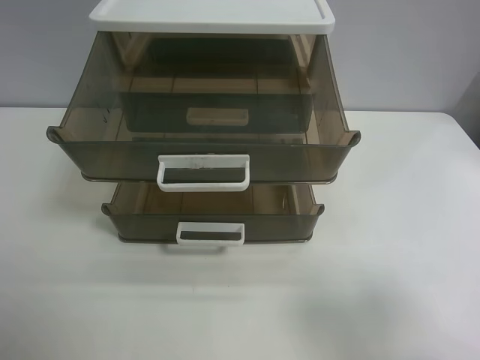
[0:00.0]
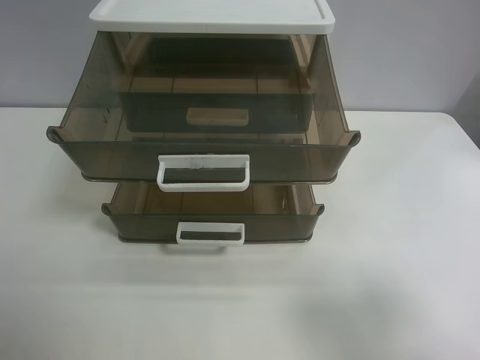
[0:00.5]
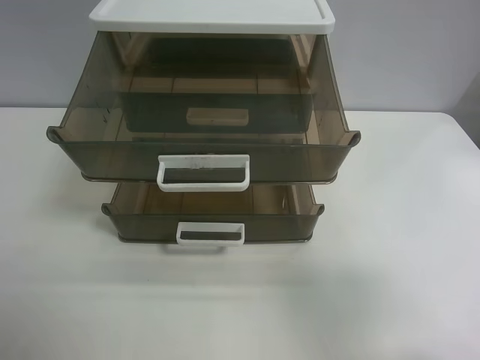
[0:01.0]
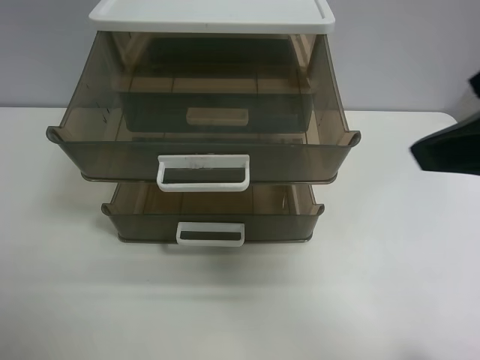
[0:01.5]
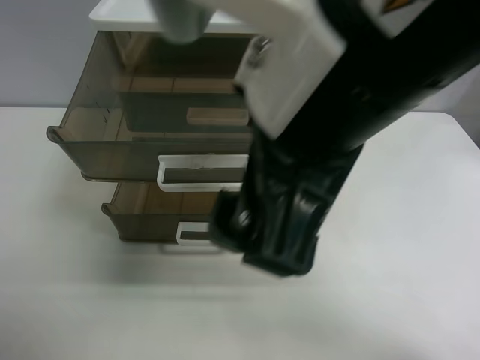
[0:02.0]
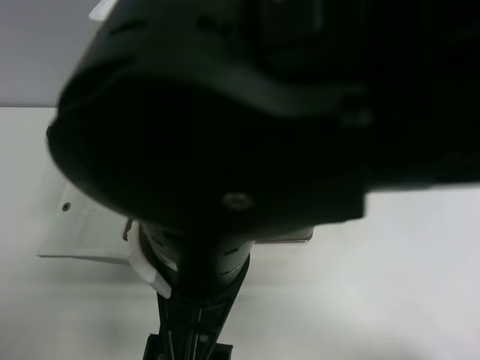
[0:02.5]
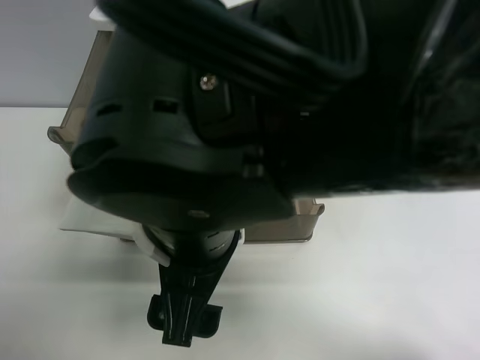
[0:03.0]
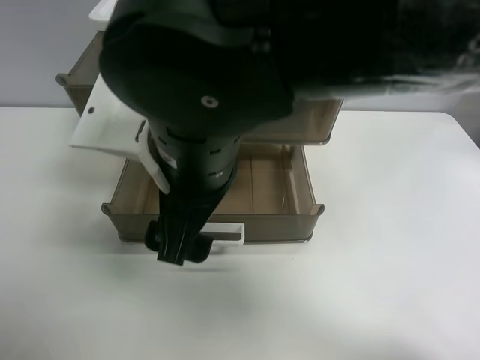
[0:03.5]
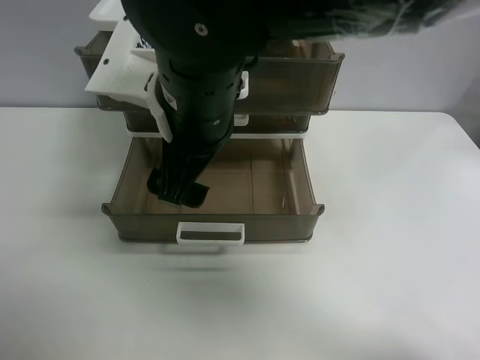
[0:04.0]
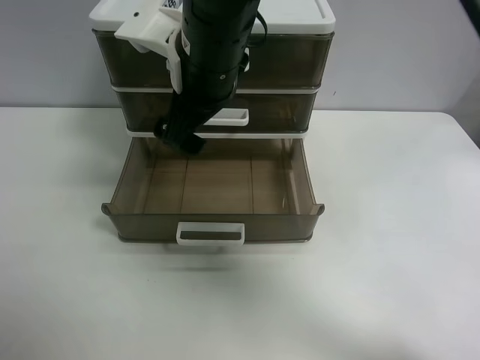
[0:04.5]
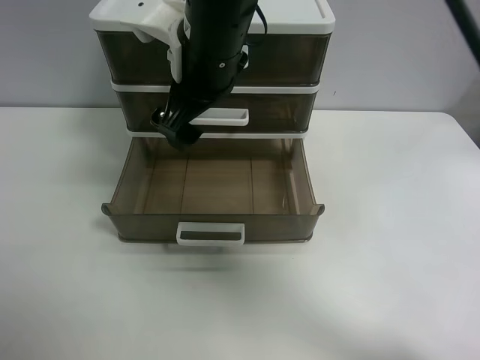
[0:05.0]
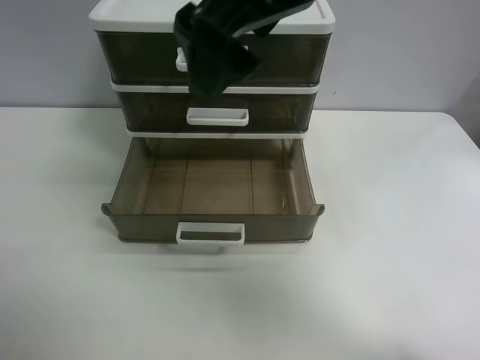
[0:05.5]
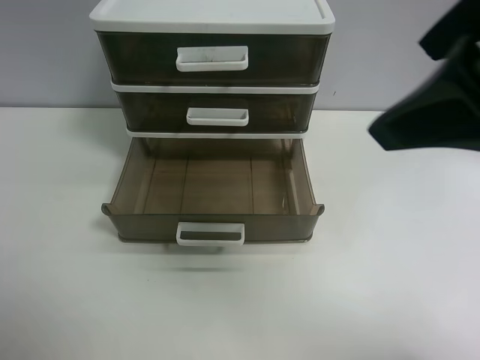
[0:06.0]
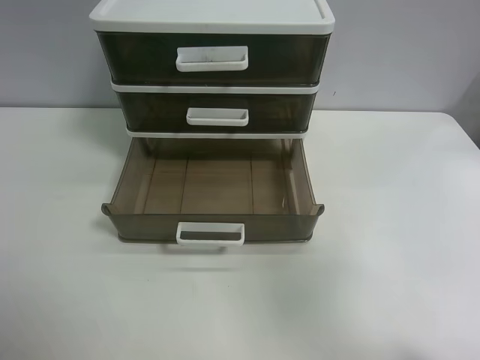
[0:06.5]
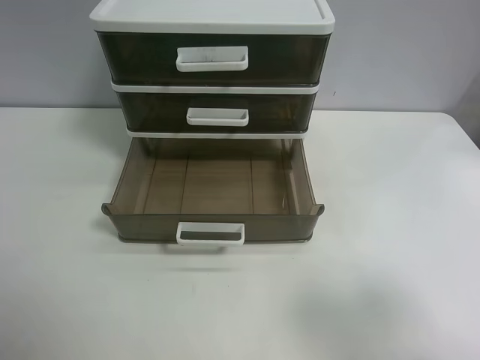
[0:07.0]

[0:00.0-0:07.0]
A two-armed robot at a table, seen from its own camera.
Task of the whole recording: close the top drawer.
Step, 0:00.0 to 0:03.0: Use the right gripper to touch the topmost layer of the storage cabinet.
Step, 0:03.5 to 0:05.0: Push the top drawer closed.
0:02.0 to 0:03.5: The right gripper moves to the left and downward, about 15 cm.
0:03.5 to 0:05.0: The right gripper is displaced forward by some 15 cm.
0:05.0 to 0:07.0: The right gripper moves to the right and backward, approximately 40 cm.
